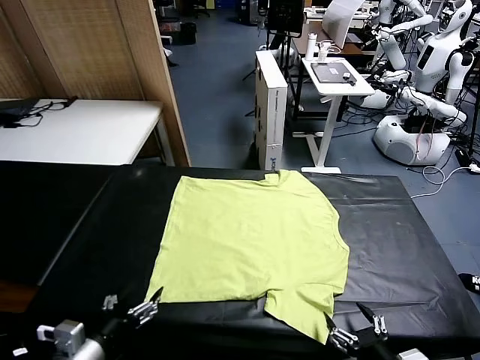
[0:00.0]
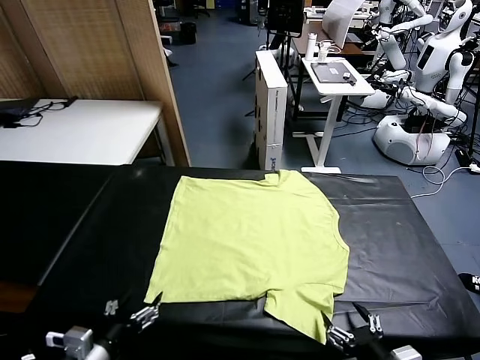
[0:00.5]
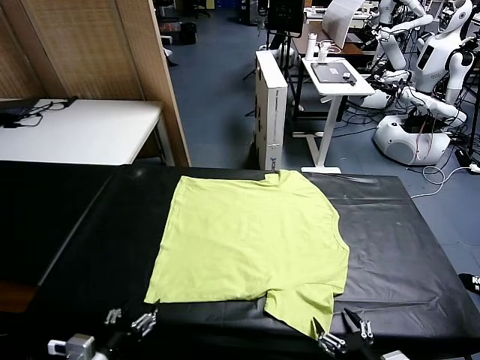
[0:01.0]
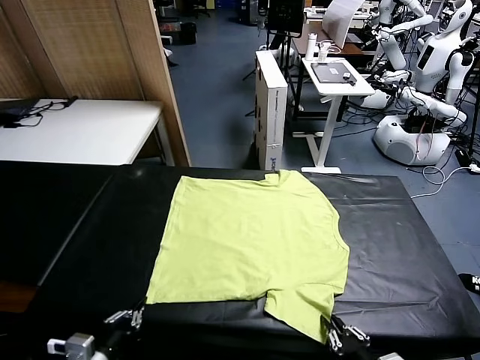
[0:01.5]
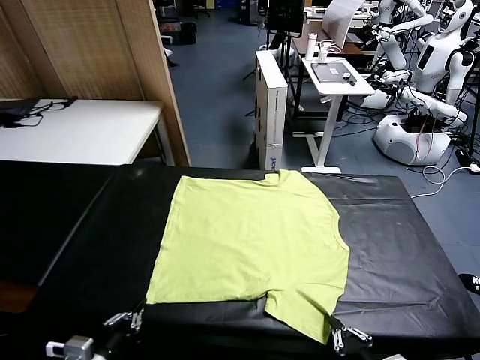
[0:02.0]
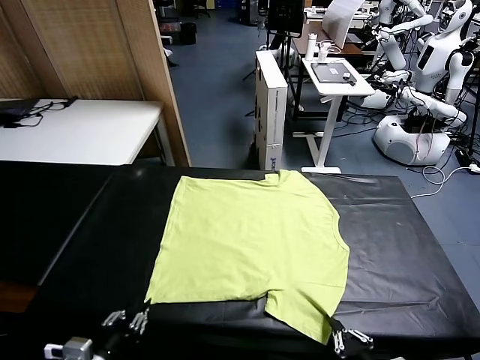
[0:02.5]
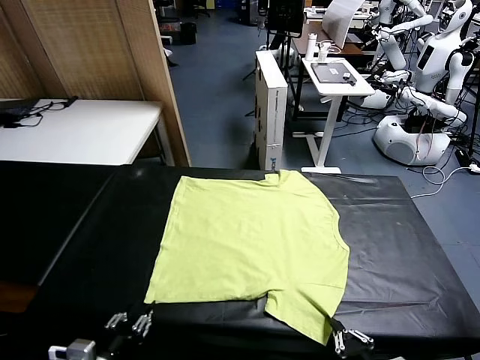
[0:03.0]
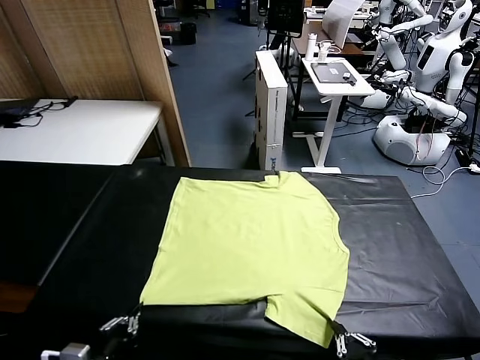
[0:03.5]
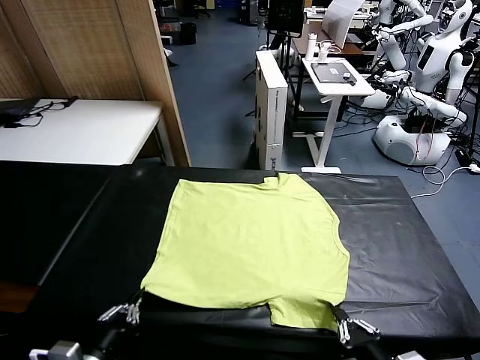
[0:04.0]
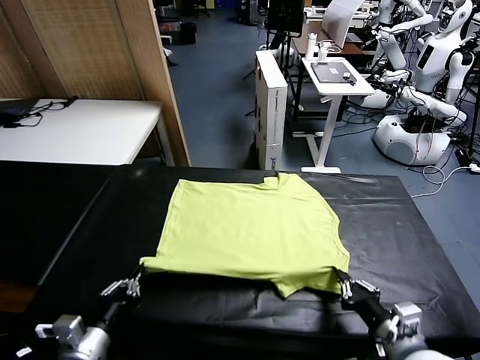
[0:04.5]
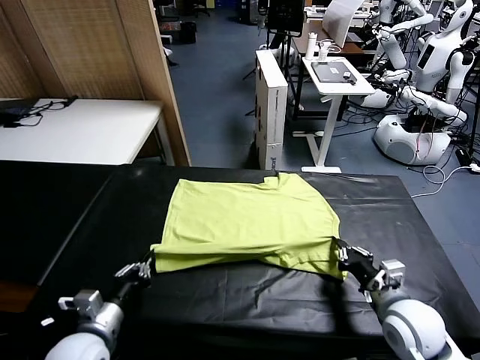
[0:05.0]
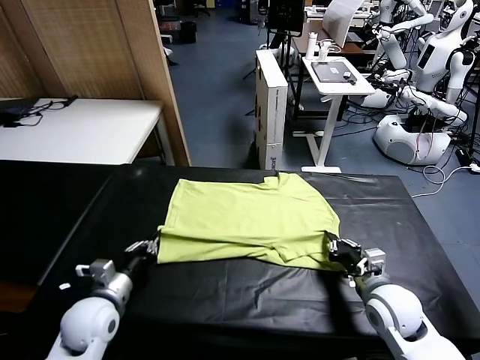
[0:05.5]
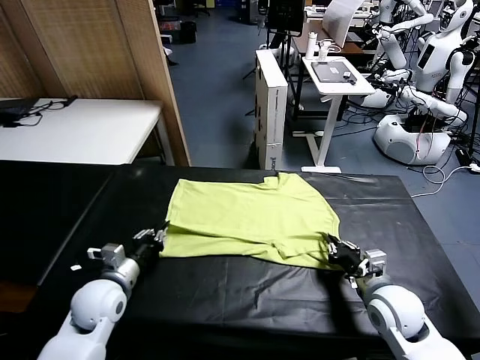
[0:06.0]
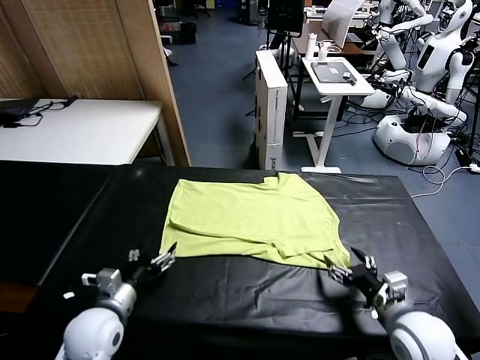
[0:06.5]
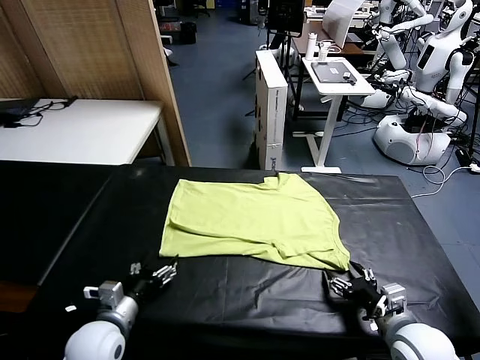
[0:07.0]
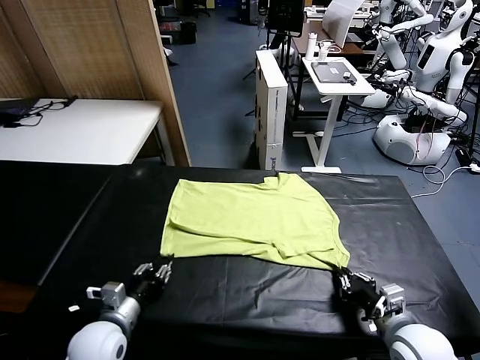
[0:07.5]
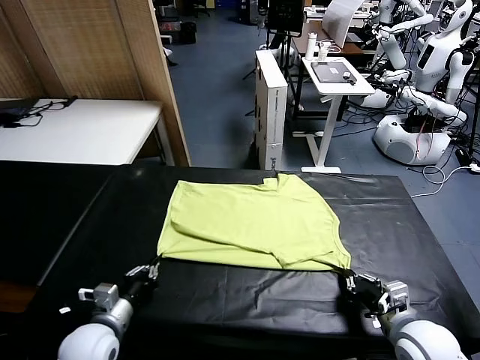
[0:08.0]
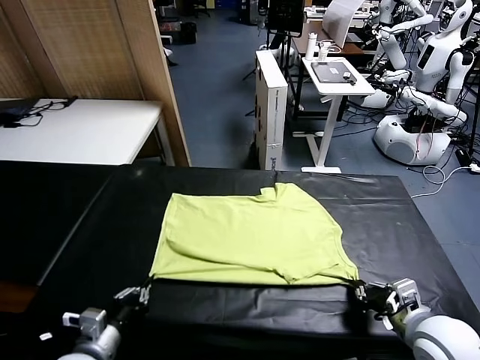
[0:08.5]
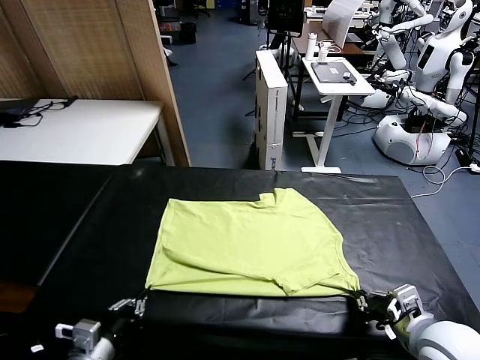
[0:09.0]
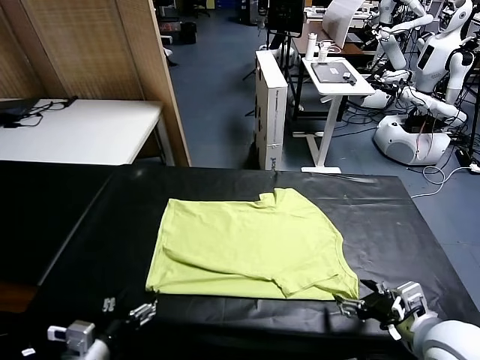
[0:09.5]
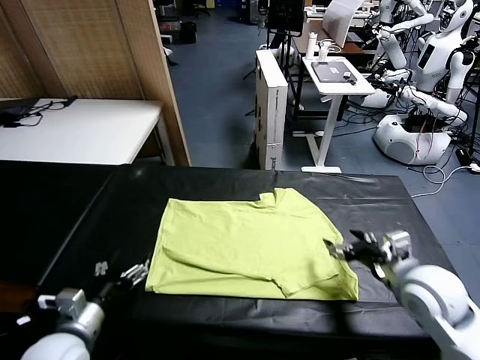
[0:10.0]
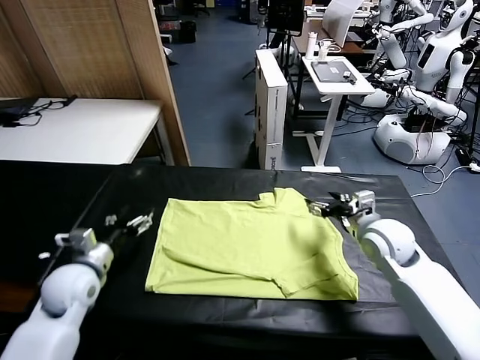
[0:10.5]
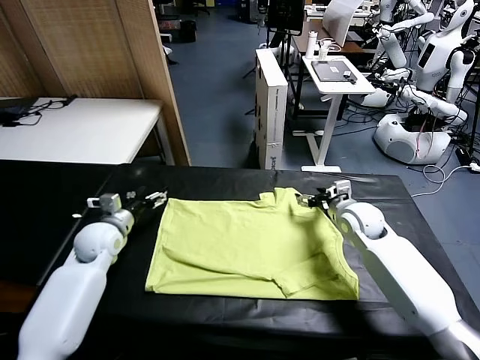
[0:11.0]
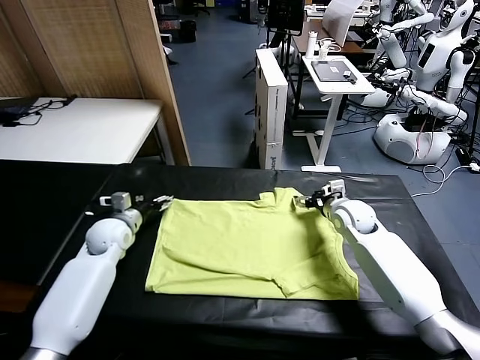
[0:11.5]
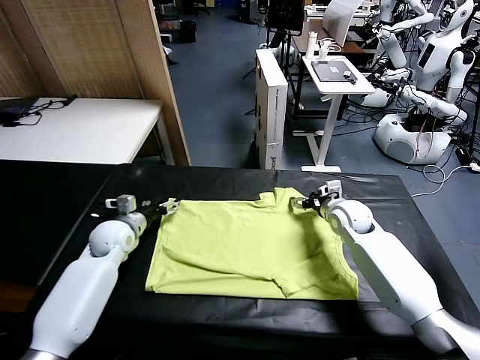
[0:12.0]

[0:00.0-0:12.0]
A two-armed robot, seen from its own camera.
Task of the whole recording: fold and organize the clothes.
Step, 0:00.0 to 0:03.5: use both grippers simultaneously to clamp the lower edge of the clothing fabric.
Step, 0:04.0 to 0:06.0: use both grippers to drag the lower edge of the fabric forward and fold it over the upper edge.
Step, 0:06.5 to 0:09.0: Drag the clothes downward with both gripper.
0:02.0 to 0:04.0: The left gripper opens, then closes again, while the right gripper heads forward, covering roughly 5 cm.
0:04.0 to 0:06.0: The left gripper goes roughly 15 cm forward, and opens. The right gripper moves forward, approximately 10 cm, and opens its fingers.
0:06.0 to 0:08.0: The right gripper closes its fingers. Meanwhile the left gripper is displaced backward by roughly 10 cm, and closes its fingers.
0:08.0 to 0:10.0: The right gripper goes approximately 20 cm forward, and opens; the left gripper heads forward, covering roughly 5 cm, and opens up.
0:10.0 to 0:12.0: The right gripper is displaced forward and downward by approximately 15 cm; the left gripper heads forward, covering some 20 cm.

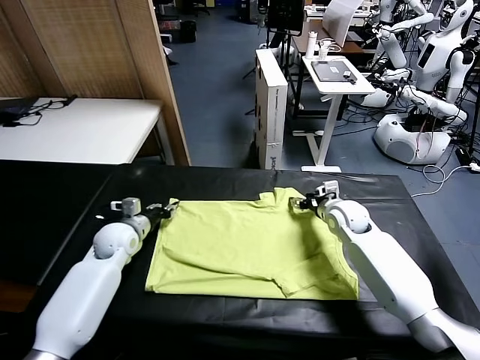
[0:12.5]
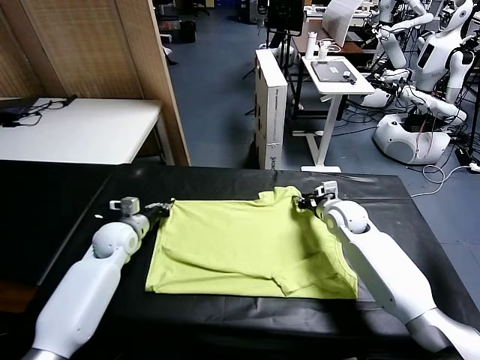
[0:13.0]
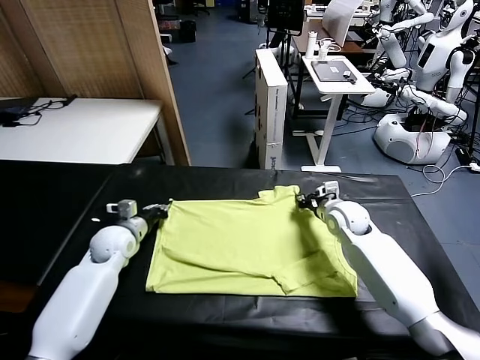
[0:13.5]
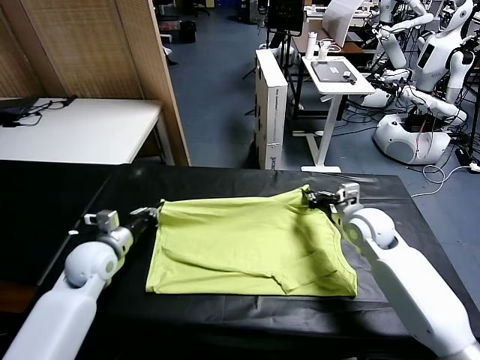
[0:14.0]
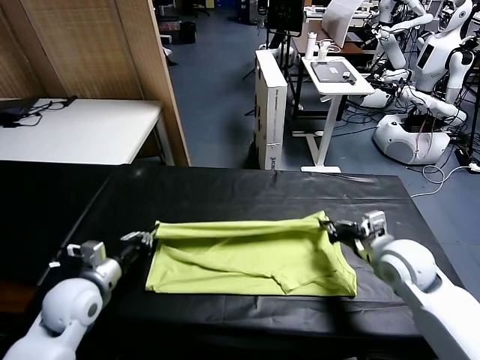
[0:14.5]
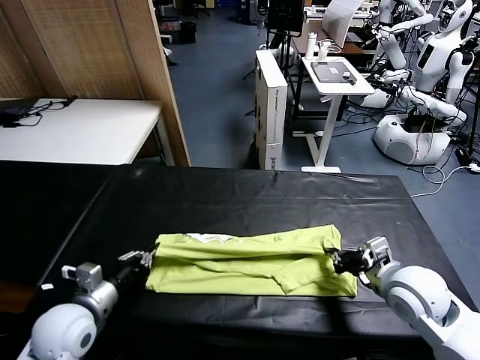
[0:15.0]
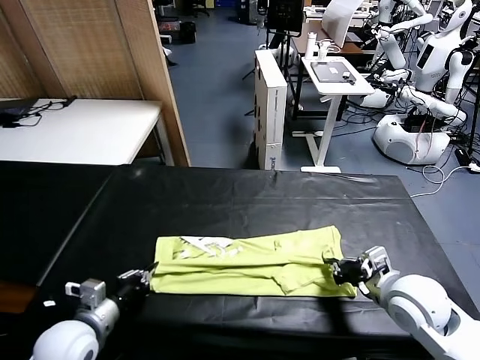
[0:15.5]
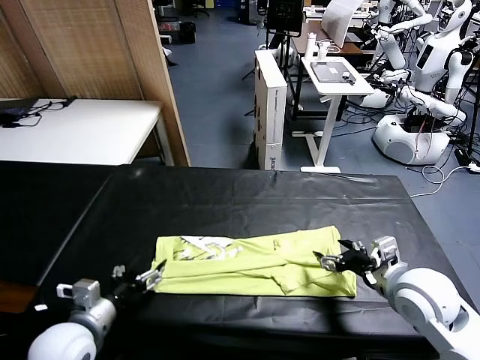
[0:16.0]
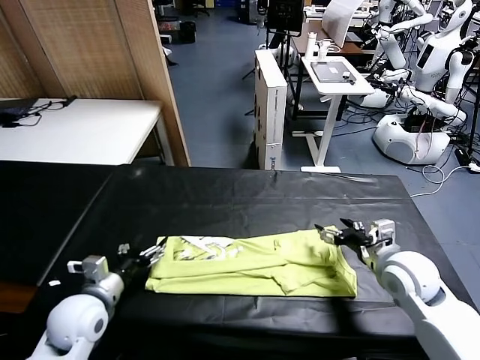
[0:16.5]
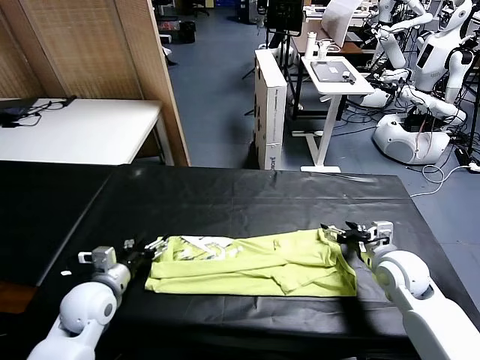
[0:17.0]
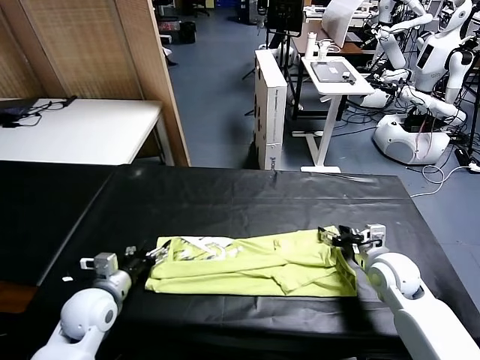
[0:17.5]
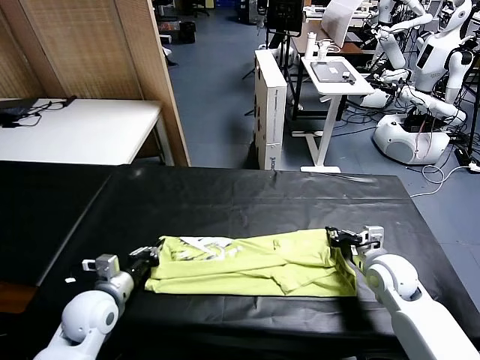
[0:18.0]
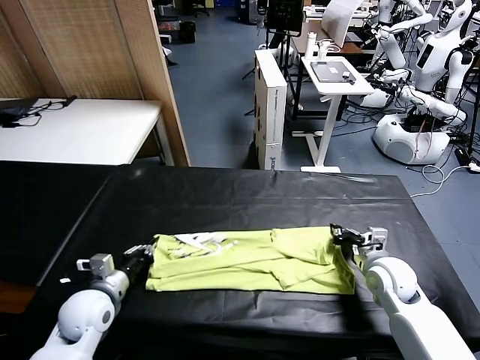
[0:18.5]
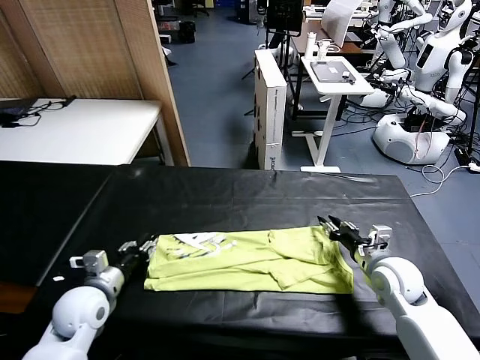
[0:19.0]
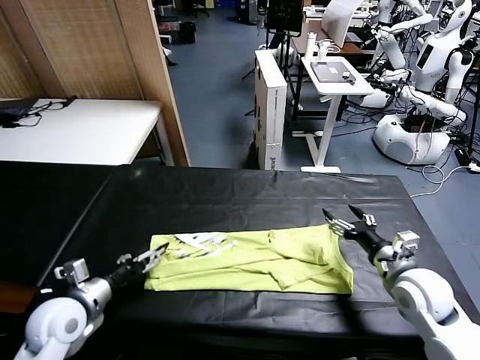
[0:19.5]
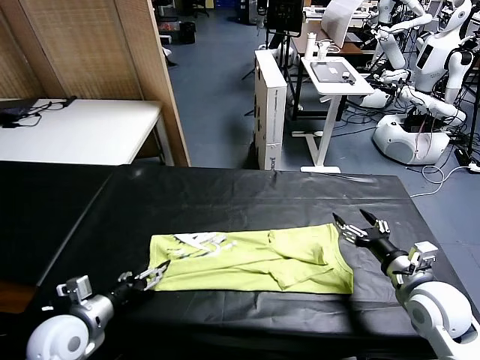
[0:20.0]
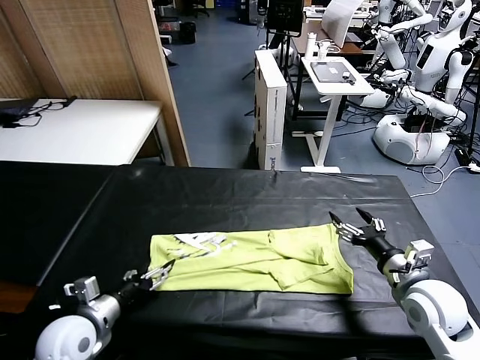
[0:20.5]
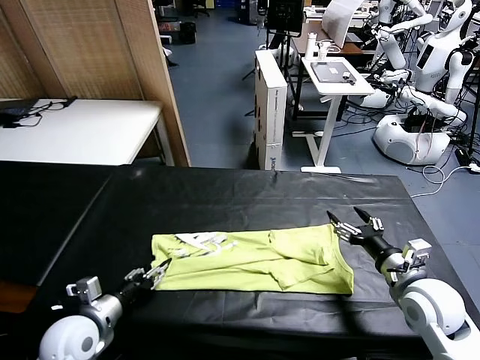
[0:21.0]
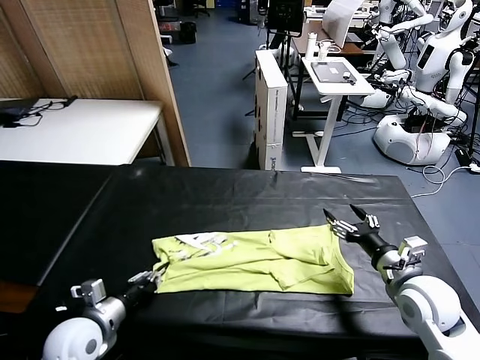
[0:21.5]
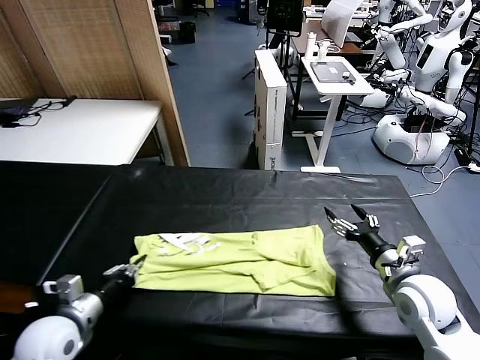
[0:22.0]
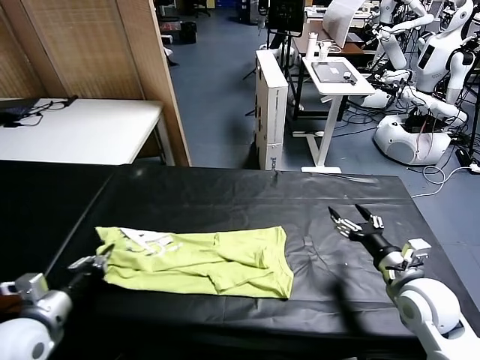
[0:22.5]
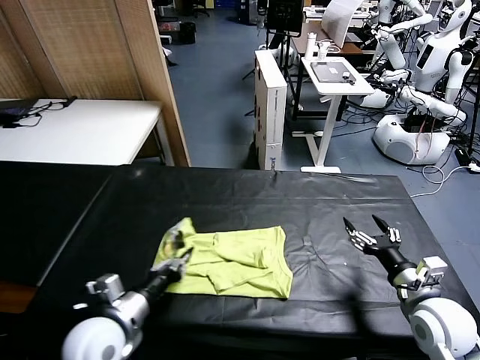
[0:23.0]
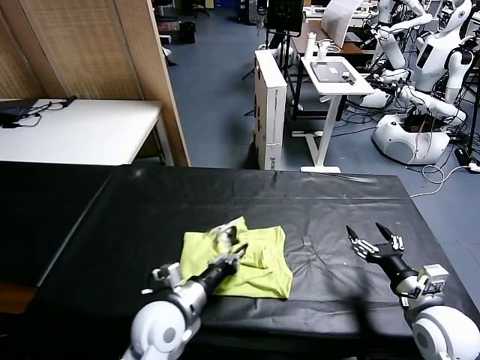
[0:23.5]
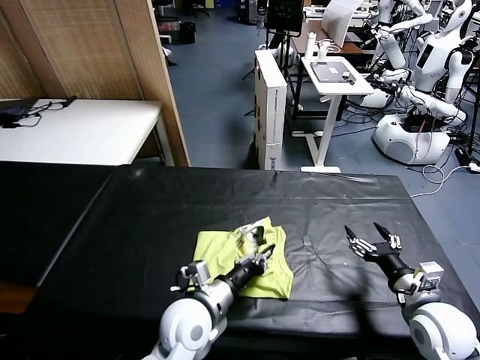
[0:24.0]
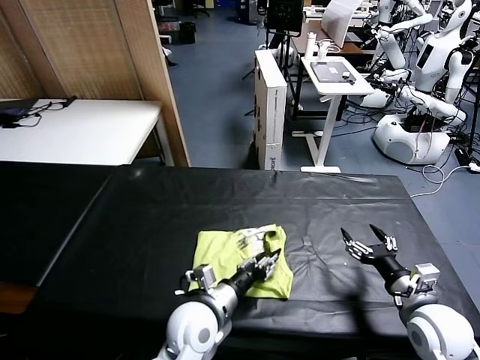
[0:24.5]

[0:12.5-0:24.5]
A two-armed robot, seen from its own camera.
Task of the whole recording: fold and organize the clothes.
Step, 0:13.5 to 0:15.5: use both grippers to drag the upper edge of the fabric backward and fold it over the lower edge.
Step, 0:16.0 to 0:21.0: use the left gripper to clamp the left edge of the fabric.
0:12.5 to 0:14.5: The two grippers go some 20 cm backward. The right gripper closes its fingers.
0:14.5 to 0:16.5: The left gripper changes place by roughly 5 cm, and opens. The right gripper travels forward by roughly 5 cm, and opens up.
0:16.5 to 0:18.5: The right gripper closes up. The left gripper closes its fingers.
0:18.5 to 0:20.5: Both grippers travel together backward, some 5 cm. The right gripper opens up; the left gripper opens.
0:20.5 to 0:22.5: The left gripper moves some 5 cm, and closes up.
0:22.5 to 0:24.5: The left gripper heads to the right, covering some 15 cm, and opens up.

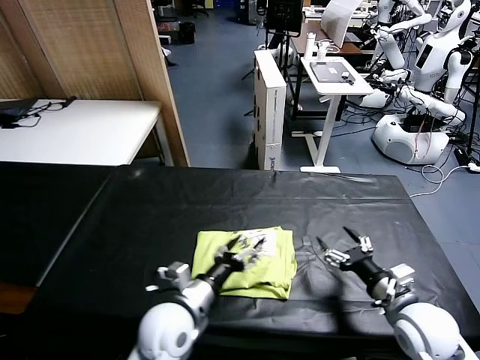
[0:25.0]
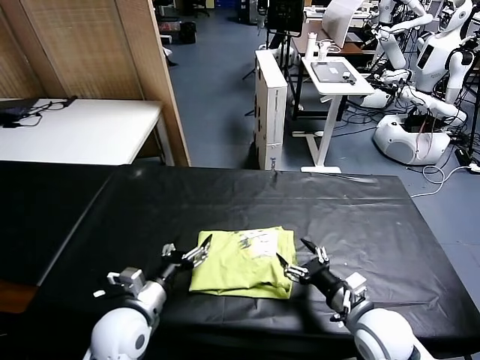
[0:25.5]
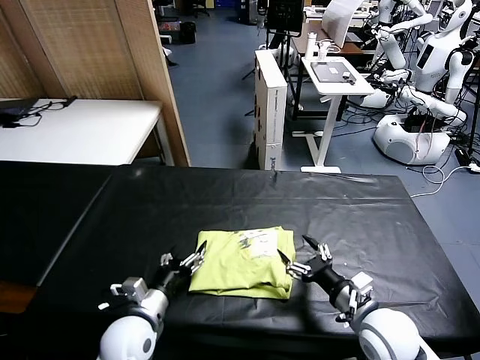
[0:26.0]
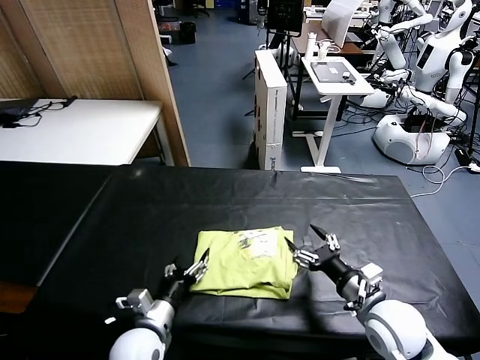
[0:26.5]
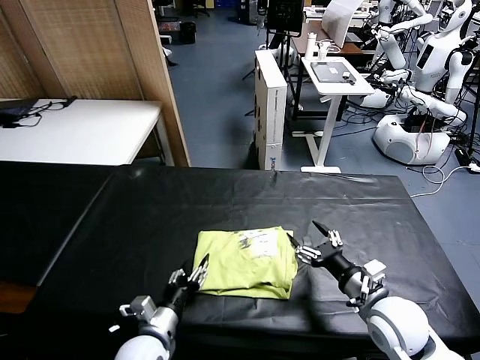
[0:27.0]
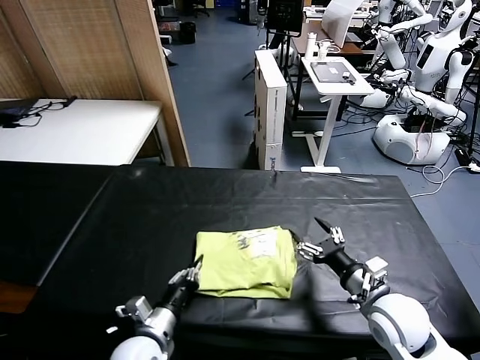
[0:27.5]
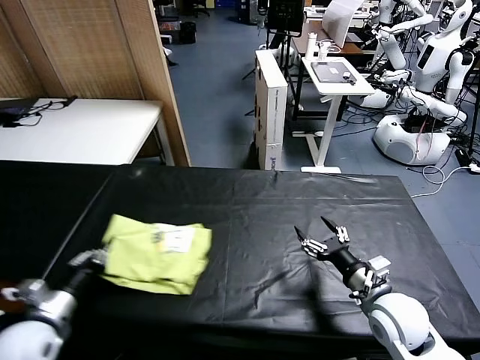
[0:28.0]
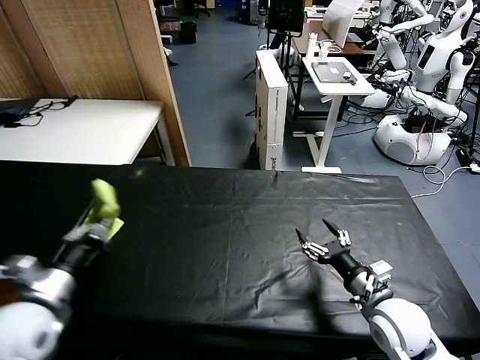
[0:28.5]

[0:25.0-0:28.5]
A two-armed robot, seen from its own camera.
Task of the whole recording: fold and organize the clothes.
0:25.0 to 0:27.0: The left gripper goes some 5 cm downward, and closes.
0:27.0 to 0:28.5: The left gripper reaches roughly 20 cm to the left, then returns.
